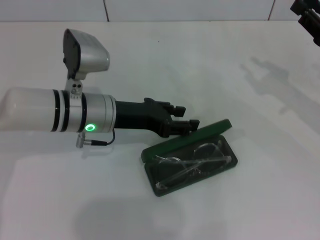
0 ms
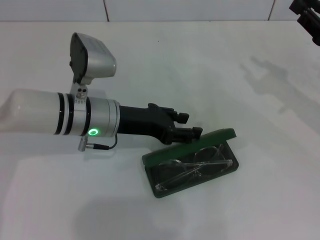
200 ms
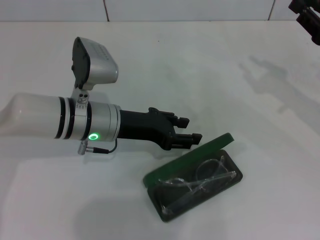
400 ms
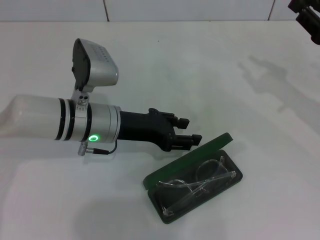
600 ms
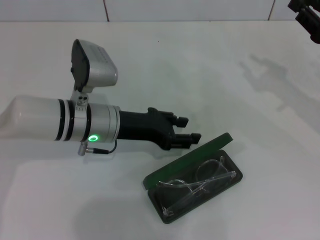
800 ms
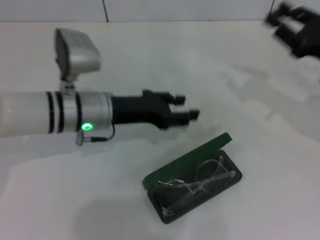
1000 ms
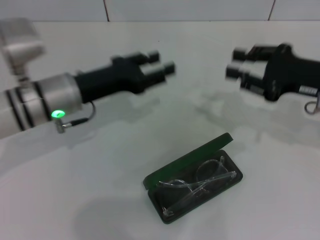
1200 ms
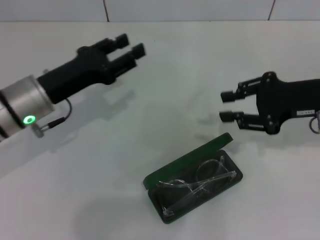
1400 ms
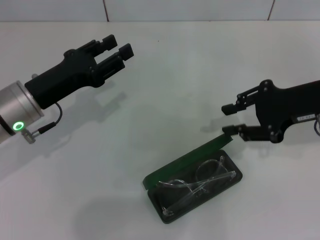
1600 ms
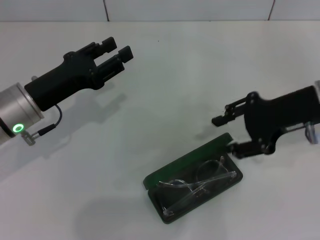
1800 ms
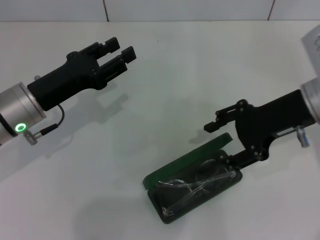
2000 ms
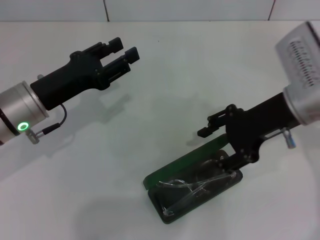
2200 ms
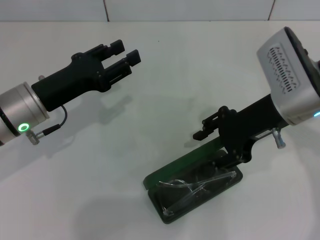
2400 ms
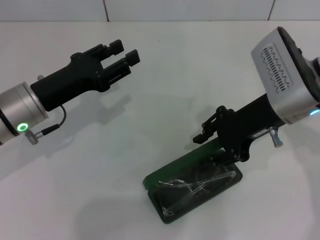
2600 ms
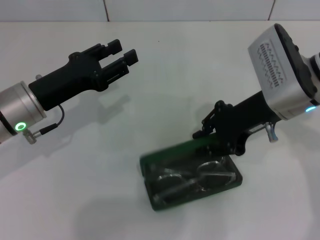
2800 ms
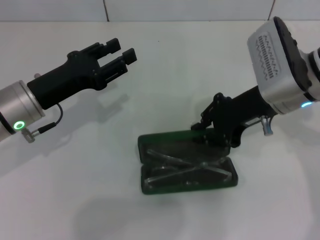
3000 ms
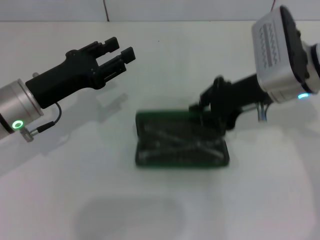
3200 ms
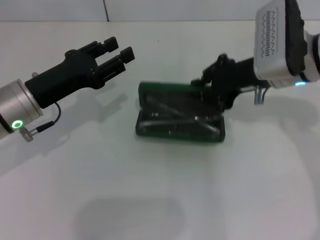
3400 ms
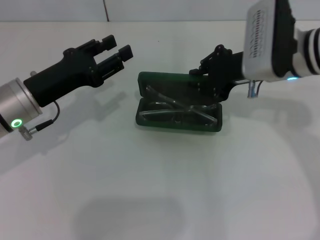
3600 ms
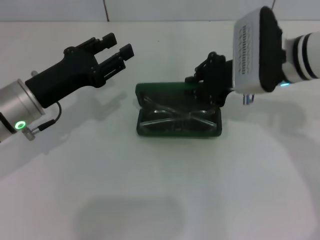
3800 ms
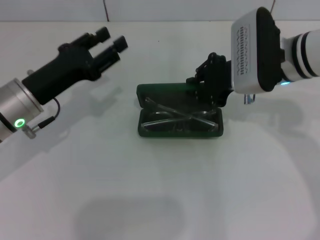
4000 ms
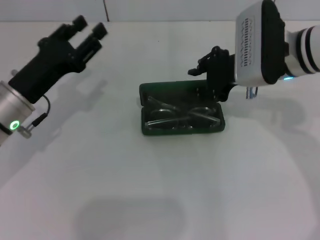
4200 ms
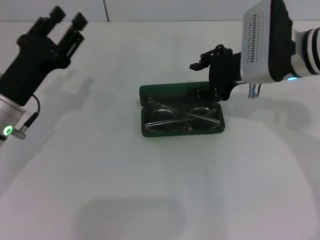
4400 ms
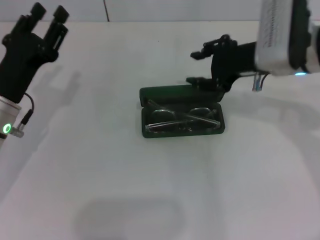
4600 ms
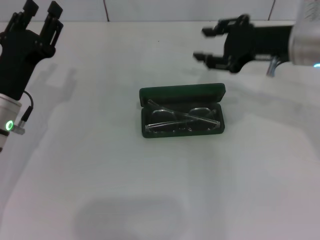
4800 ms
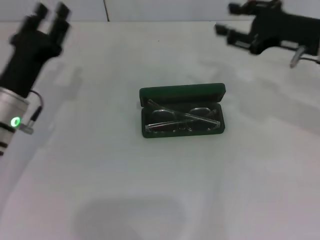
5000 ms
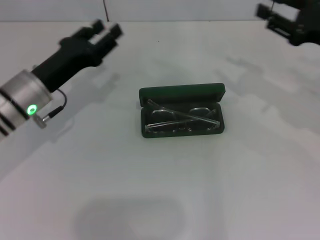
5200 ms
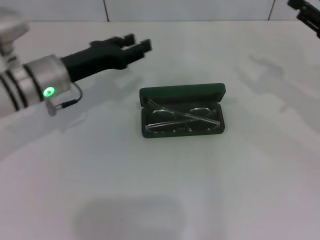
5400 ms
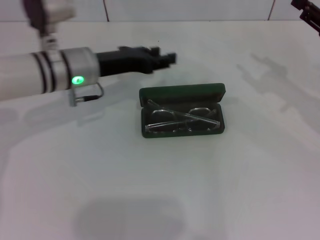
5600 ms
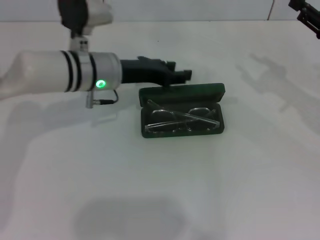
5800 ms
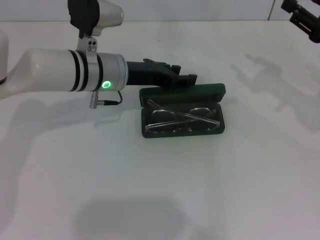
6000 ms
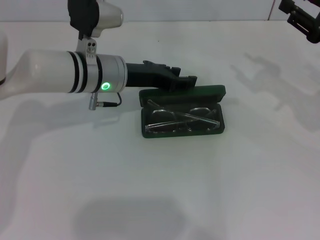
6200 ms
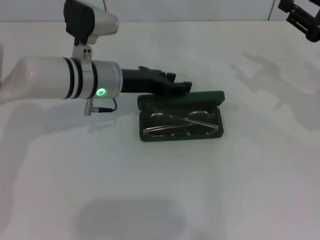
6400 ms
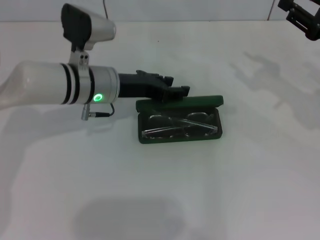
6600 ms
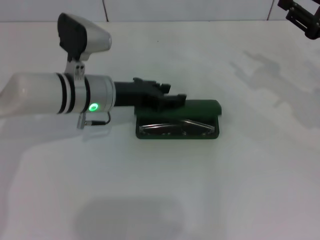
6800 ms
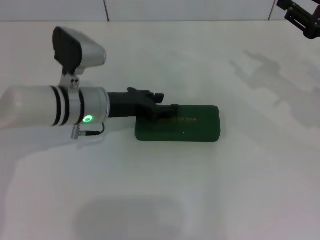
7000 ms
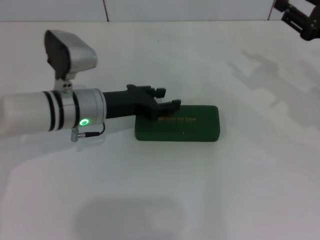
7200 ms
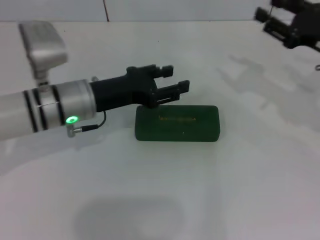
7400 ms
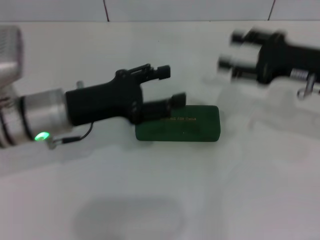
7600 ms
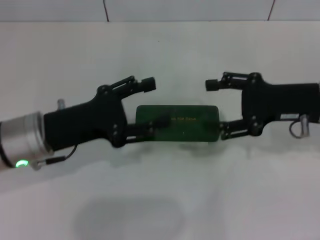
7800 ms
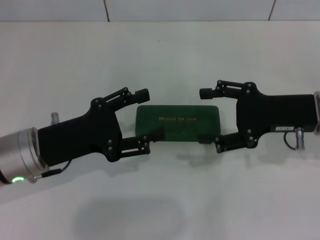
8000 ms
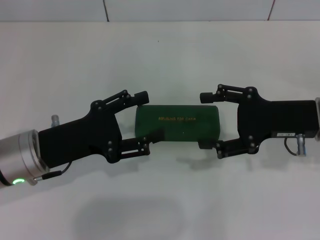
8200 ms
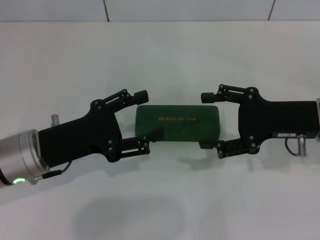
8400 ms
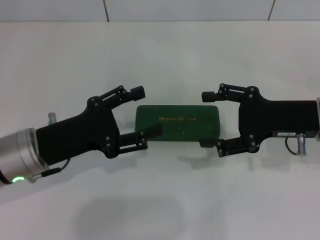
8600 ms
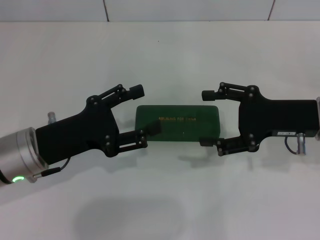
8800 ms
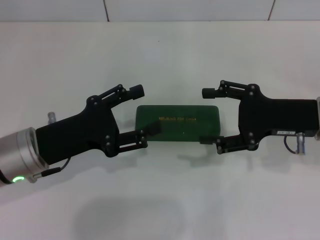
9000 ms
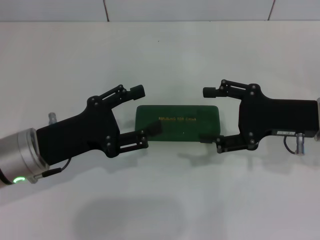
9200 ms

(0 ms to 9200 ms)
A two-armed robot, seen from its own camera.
Step, 0 ms - 4200 ms: Place the glasses case in the center of the table with your right hand.
Step, 4600 ms - 6800 ms: Close the glasses case with your left hand.
0 ms - 1600 ms: Both grippers travel together to the left, some 10 cm.
1600 ms - 3000 ms: The right gripper goes some 10 cm to the left, and opens, then closes again.
4600 ms - 6200 ms: The left gripper shifts roughly 15 cm to the right and forward; the right gripper travels to the right by some 15 cm.
6200 ms - 7600 ms: The right gripper moves to the left, about 5 cm, while the left gripper is displaced backward and to the left by approximately 10 cm.
7600 ms - 9200 ms: The right gripper ends up approximately 5 cm from where it was, and opens up. The left gripper shifts approximately 5 cm backward.

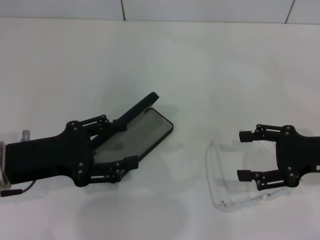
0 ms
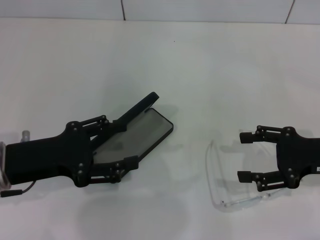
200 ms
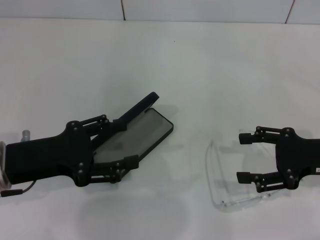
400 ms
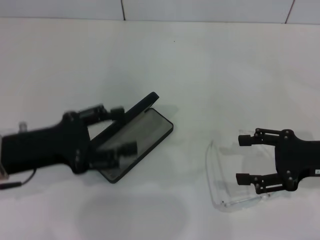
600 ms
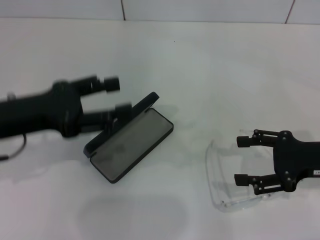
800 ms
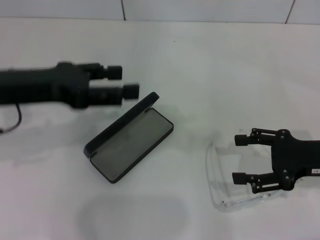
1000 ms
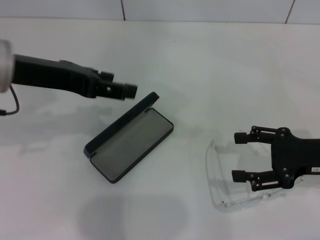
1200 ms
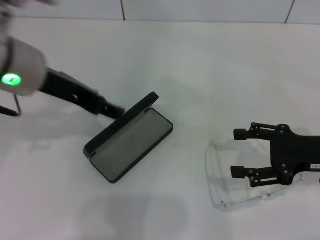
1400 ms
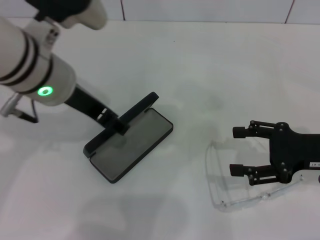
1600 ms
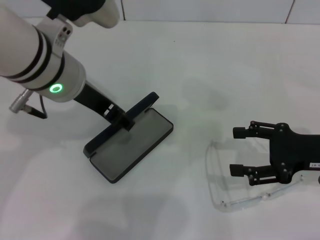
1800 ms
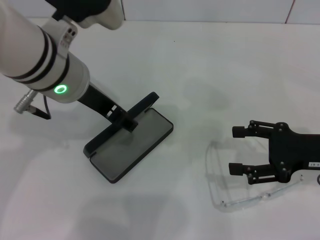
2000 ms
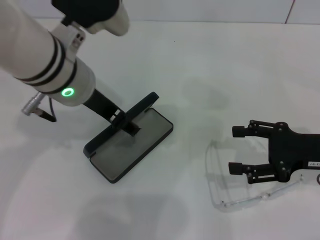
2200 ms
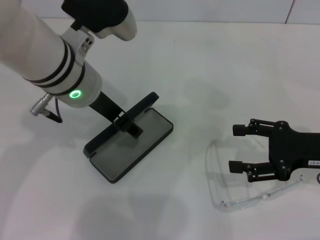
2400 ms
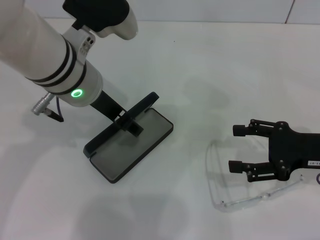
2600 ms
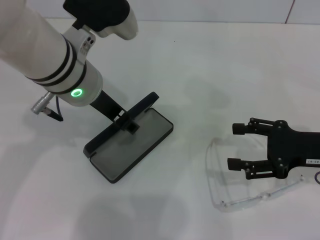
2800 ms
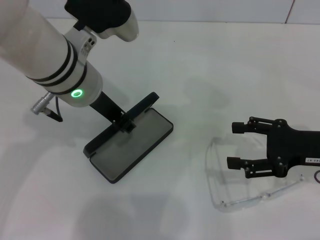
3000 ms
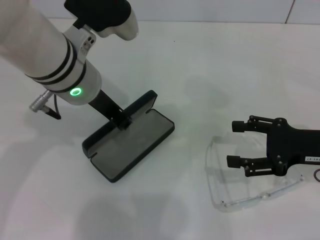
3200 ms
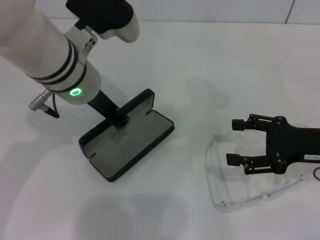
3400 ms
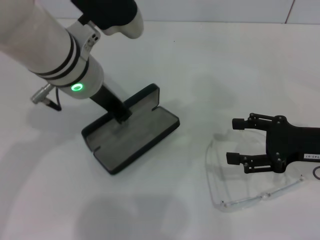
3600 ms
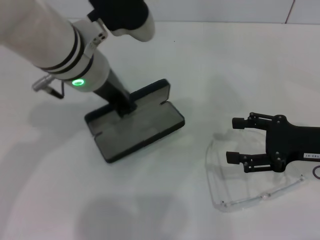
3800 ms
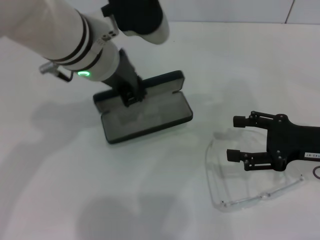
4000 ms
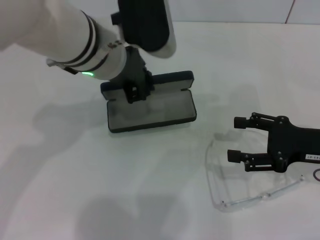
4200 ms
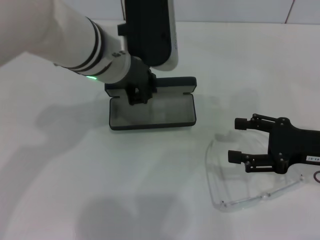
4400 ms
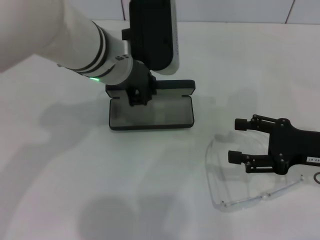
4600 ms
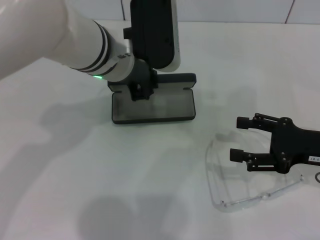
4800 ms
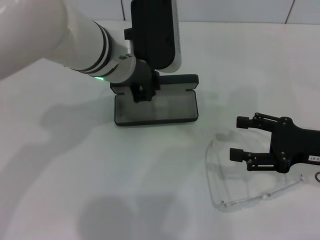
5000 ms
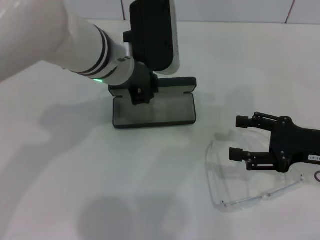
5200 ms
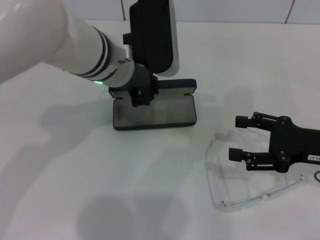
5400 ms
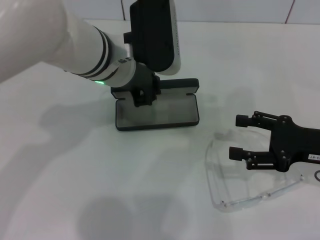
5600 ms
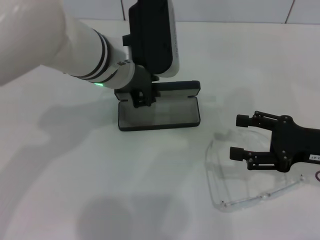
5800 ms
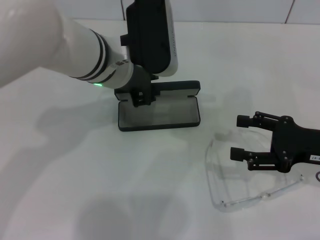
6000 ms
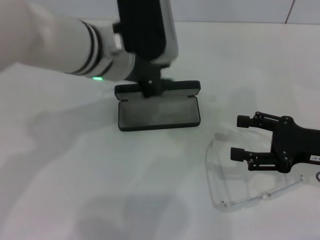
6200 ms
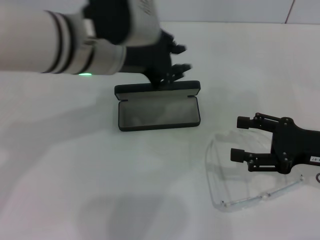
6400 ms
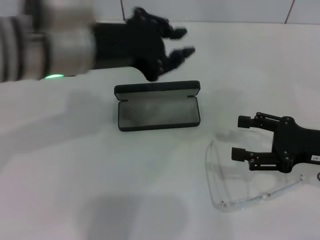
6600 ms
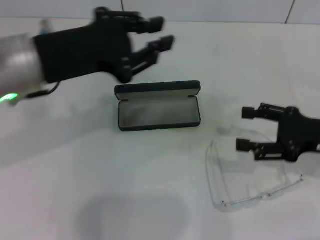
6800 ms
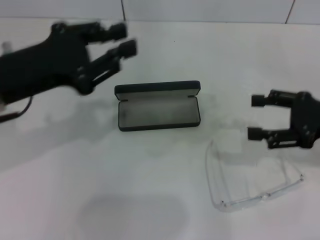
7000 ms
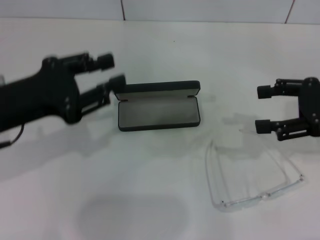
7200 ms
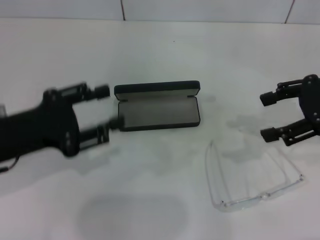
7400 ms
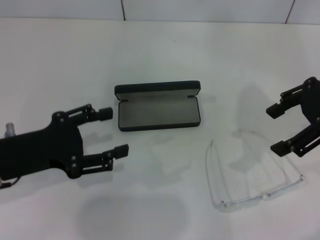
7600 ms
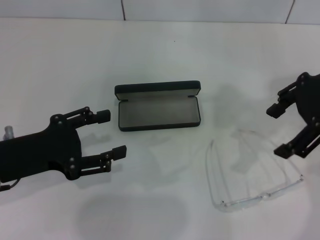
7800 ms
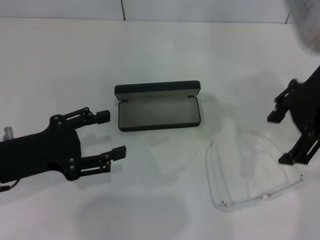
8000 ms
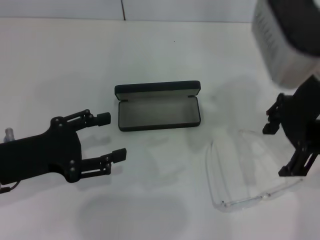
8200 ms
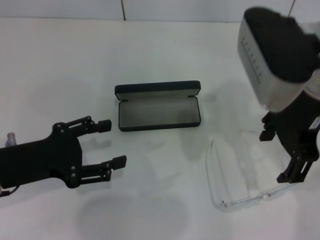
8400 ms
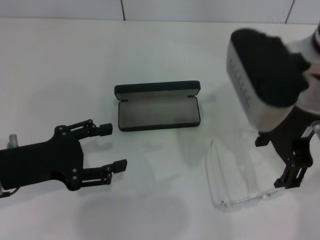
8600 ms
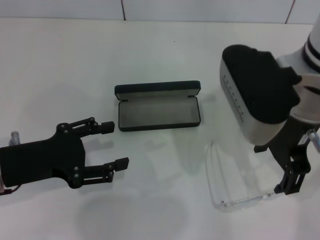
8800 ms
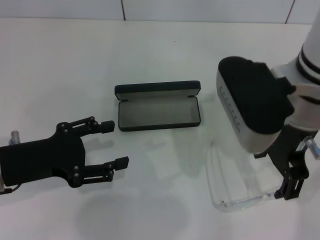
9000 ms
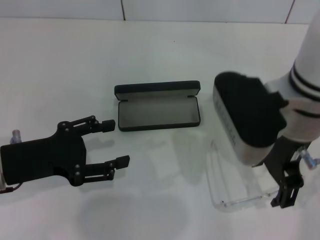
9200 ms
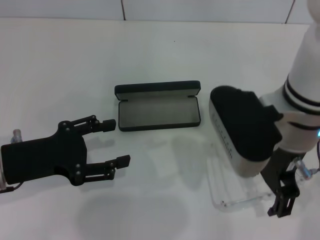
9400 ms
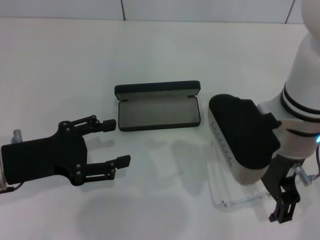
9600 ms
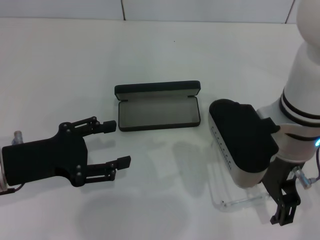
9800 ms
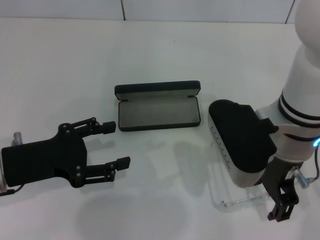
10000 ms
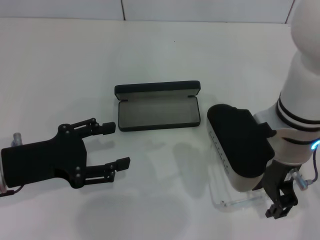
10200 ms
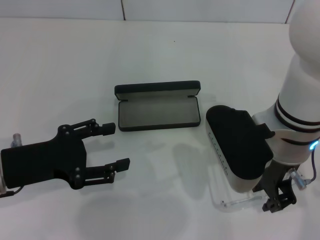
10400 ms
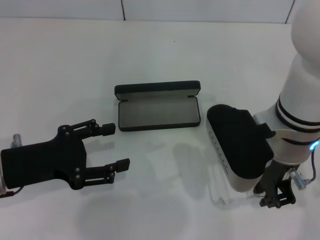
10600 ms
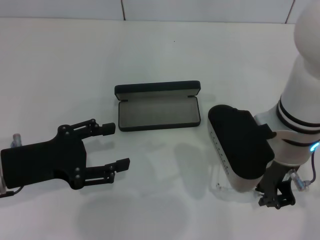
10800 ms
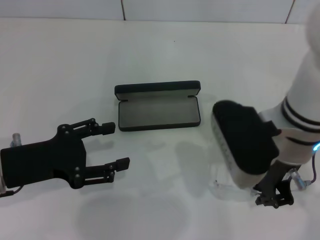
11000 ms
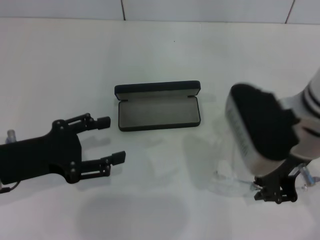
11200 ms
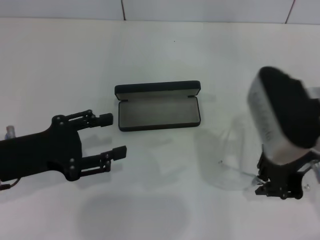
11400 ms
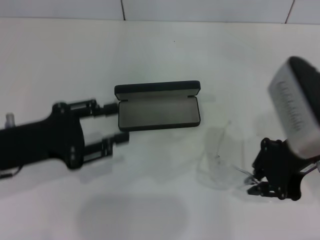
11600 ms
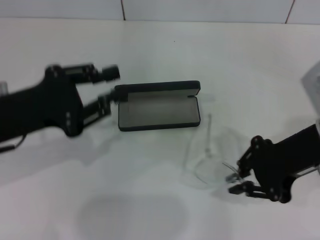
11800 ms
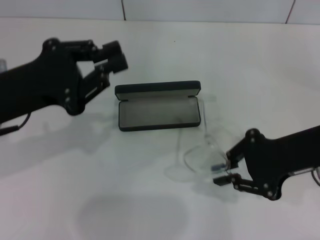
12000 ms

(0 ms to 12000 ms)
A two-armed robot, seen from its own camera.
Step, 0 ms - 3200 ms: Grab the glasses case with your left hand.
Step, 3400 ms - 6000 ms: Place the glasses case in the center of the table with your left hand.
Step, 6200 ms - 10600 ms: Grab the eyeglass frame with your right hand.
0 ms - 1600 ms: The left gripper is displaced to the right, upward and forward by some 15 cm.
1600 ms - 3000 ms: The grippers move only a little.
3000 ms - 4400 ms: The left gripper closes.
4400 ms - 6000 ms: The grippers make only small movements.
6000 ms - 7600 ms: The left gripper is displaced to the left and backward by roughly 20 cm. Meanwhile the right gripper is displaced upward by some 15 cm.
7600 ms - 9000 ms: The right gripper shifts about 15 cm to the left.
9000 ms - 10400 ms: The right gripper travels downward by roughly 5 cm.
10400 ms - 12000 ms: The right gripper moves to the right, approximately 10 cm, and closes up. Meanwhile the left gripper shifts about 5 cm upward, and closes its fingers.

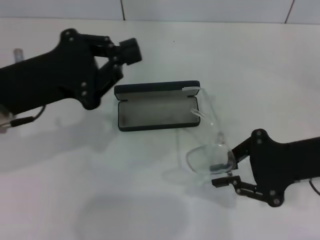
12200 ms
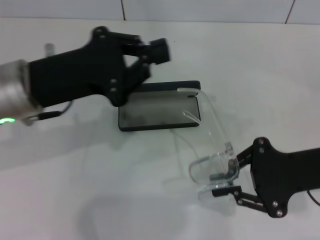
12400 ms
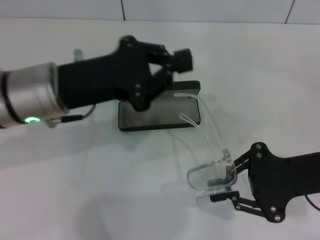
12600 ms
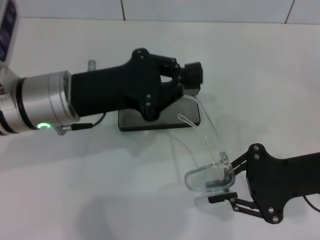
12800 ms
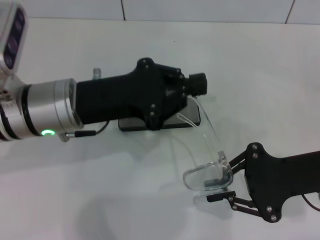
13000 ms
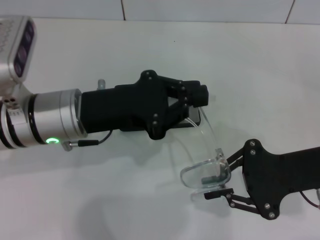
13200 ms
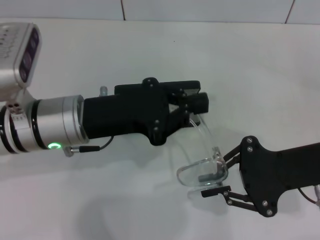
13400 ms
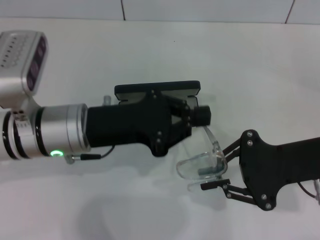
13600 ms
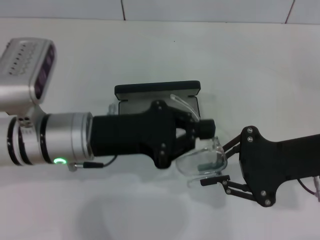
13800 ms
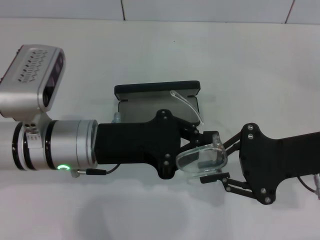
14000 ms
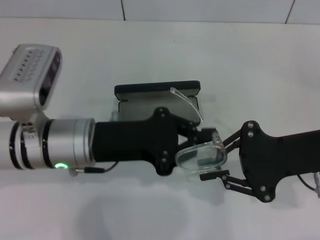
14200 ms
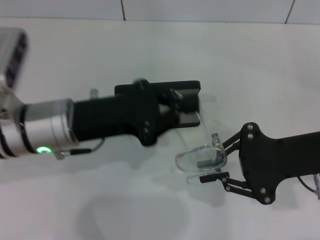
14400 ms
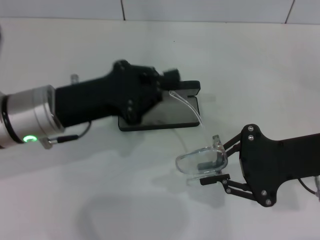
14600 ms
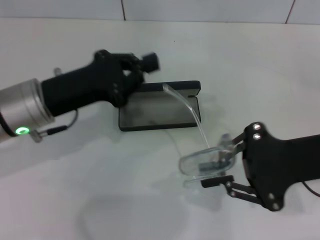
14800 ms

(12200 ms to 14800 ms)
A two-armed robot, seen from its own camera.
12200 ms - 13400 ms: The left gripper heads to the right, covering about 5 cm.
